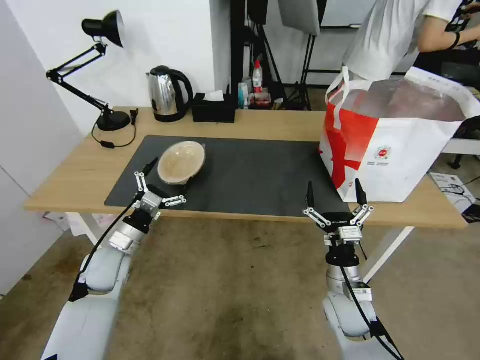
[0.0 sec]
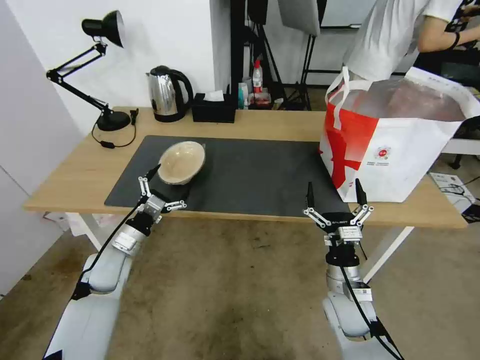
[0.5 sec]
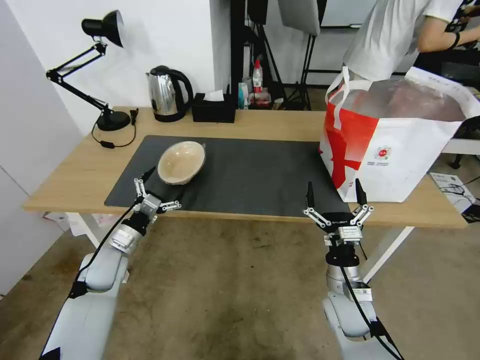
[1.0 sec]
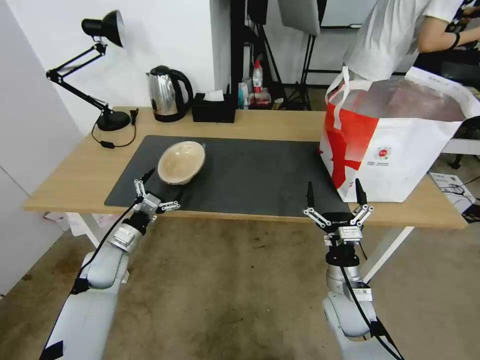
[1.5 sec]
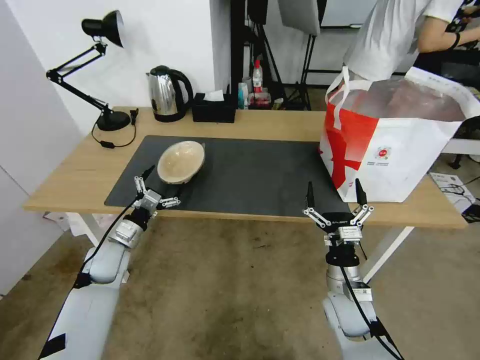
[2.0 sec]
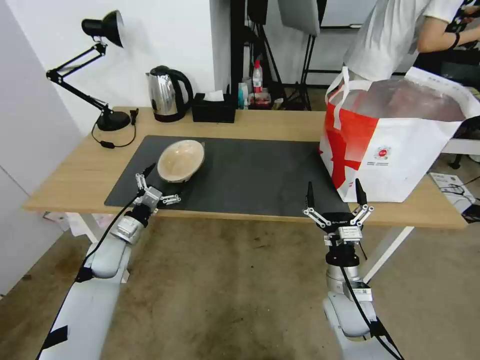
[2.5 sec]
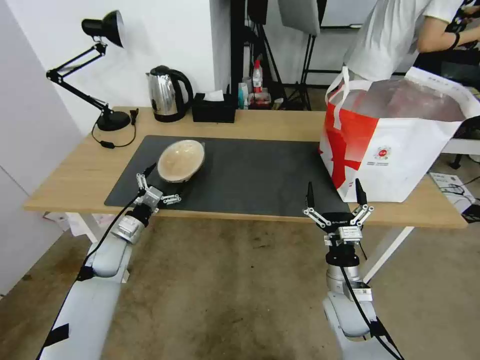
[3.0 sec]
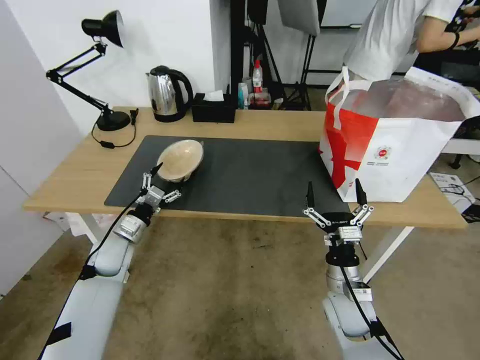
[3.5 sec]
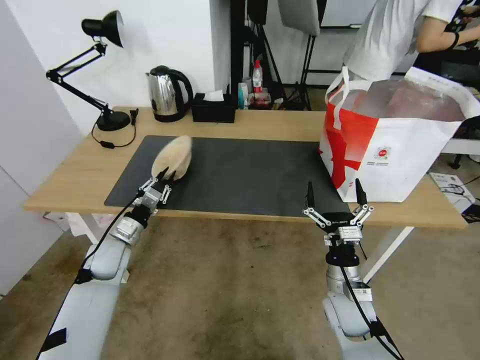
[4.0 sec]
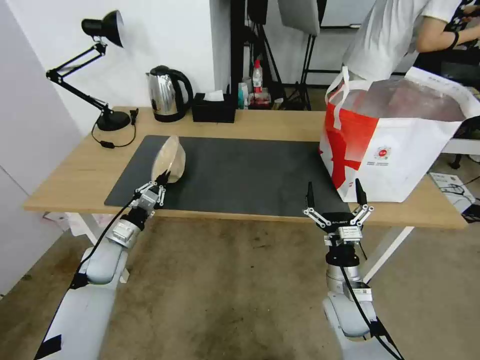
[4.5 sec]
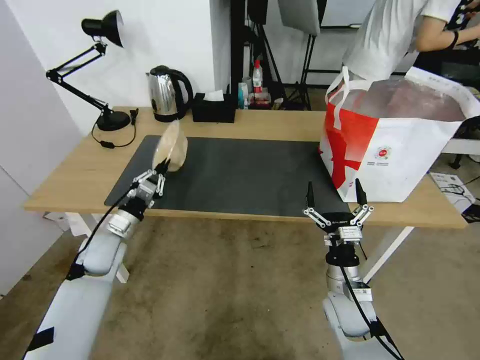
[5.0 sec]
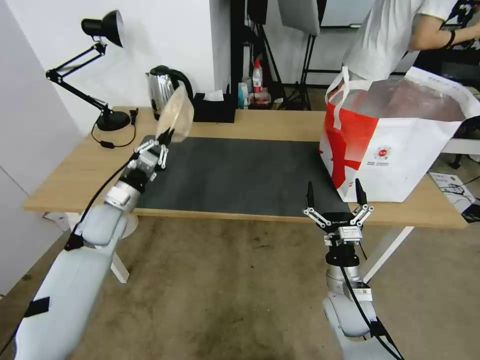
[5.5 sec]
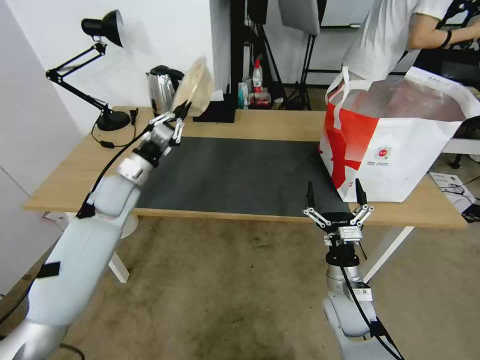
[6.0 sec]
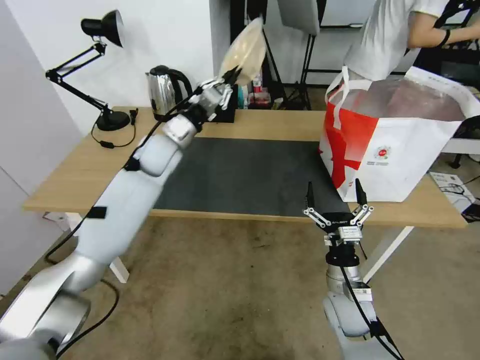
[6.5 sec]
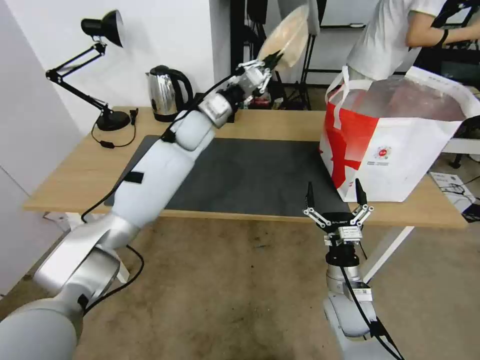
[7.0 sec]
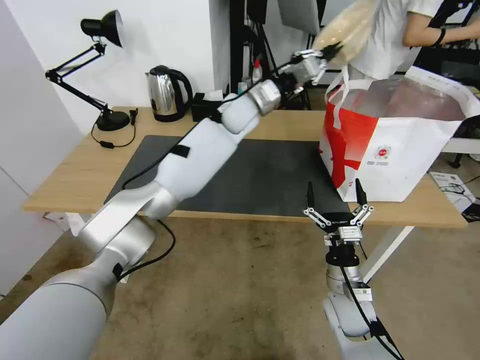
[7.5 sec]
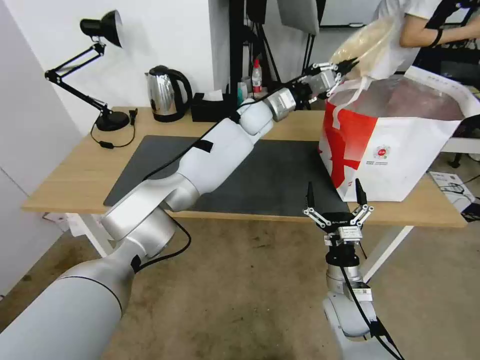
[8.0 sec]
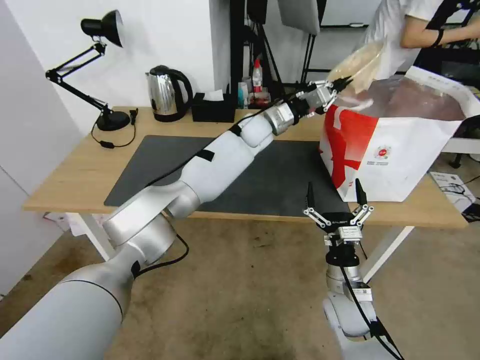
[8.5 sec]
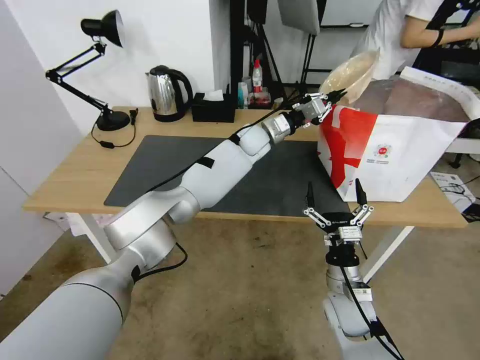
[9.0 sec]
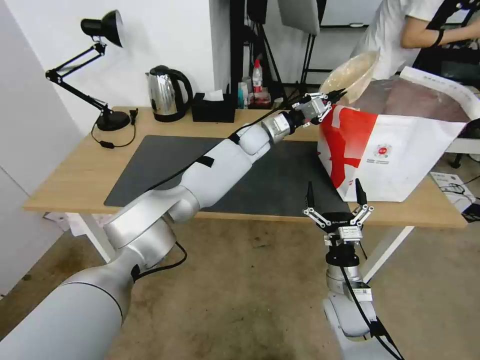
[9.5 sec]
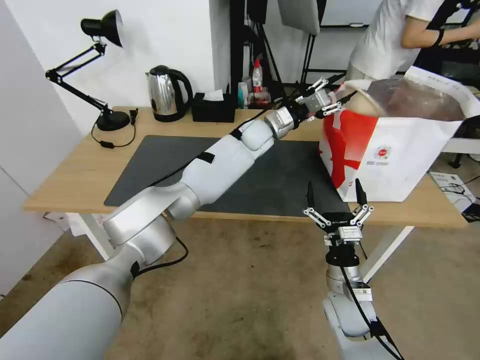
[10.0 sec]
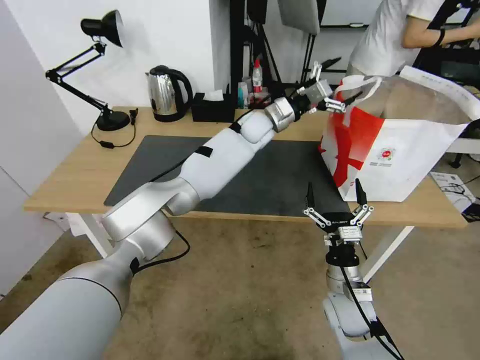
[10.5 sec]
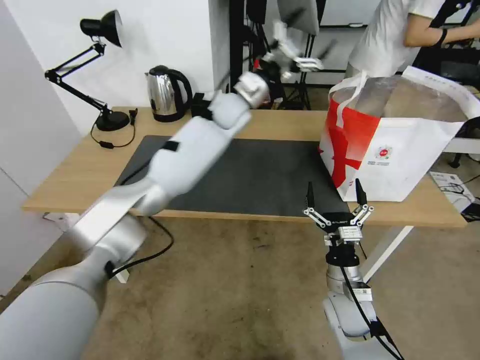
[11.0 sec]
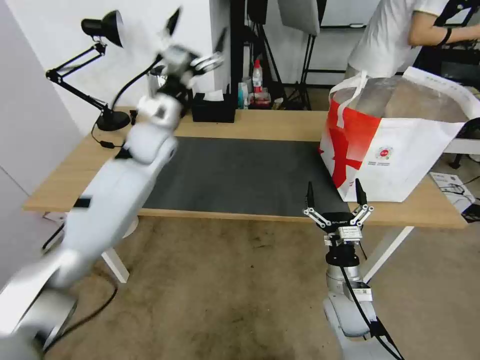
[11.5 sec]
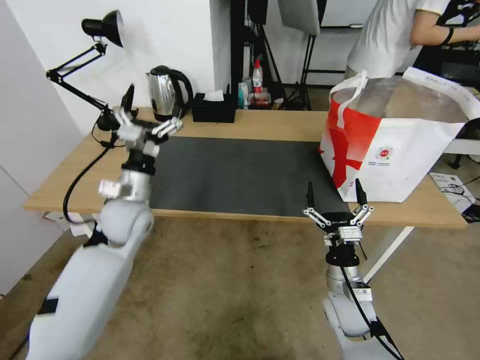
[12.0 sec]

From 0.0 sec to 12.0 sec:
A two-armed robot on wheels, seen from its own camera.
Task of the whole recording: Pick up the trash from the table and place it into the takeout bag.
From 0.0 sec to 2.0 sec: The grippers move only a little.
From 2.0 sec to 4.0 sec: The left gripper closes its fingers.
From 4.0 sec to 6.0 sec: The left gripper goes some 15 cm upward and forward.
From 6.0 sec to 8.0 sec: The left gripper moves to the right and forward, roughly 40 cm.
From 8.0 sec to 10.0 sec: The left gripper goes some 5 cm downward, and opens.
From 10.0 sec to 12.0 sec: The left gripper travels to the left and backward by some 35 cm, and opens up.

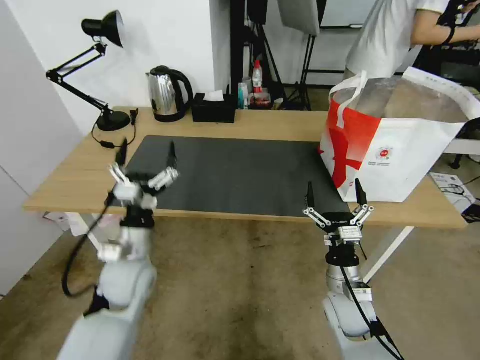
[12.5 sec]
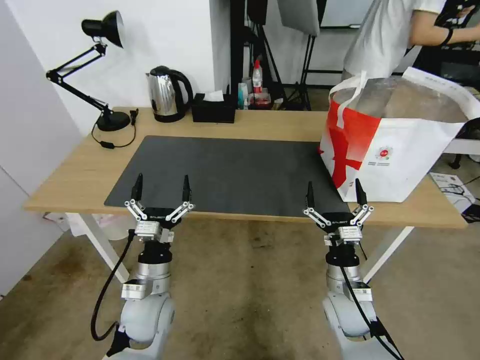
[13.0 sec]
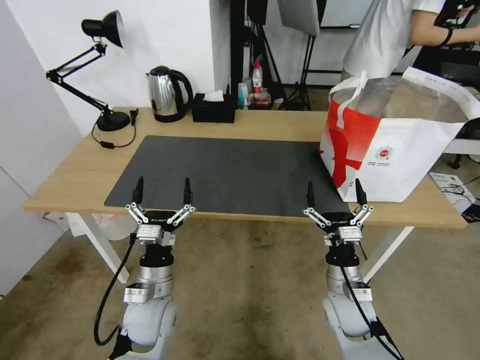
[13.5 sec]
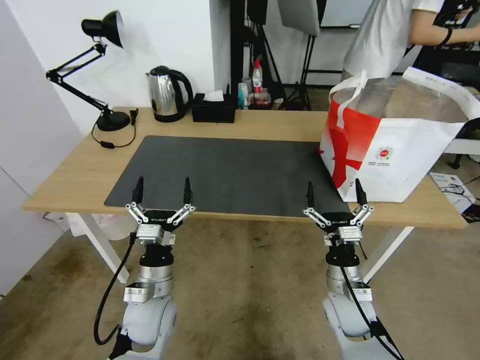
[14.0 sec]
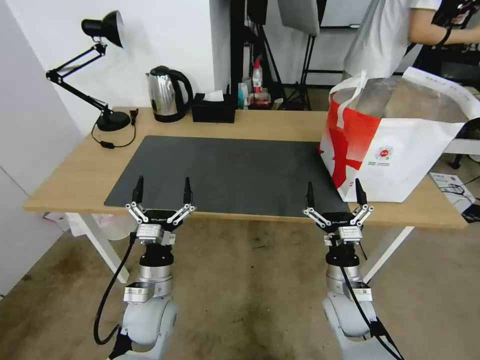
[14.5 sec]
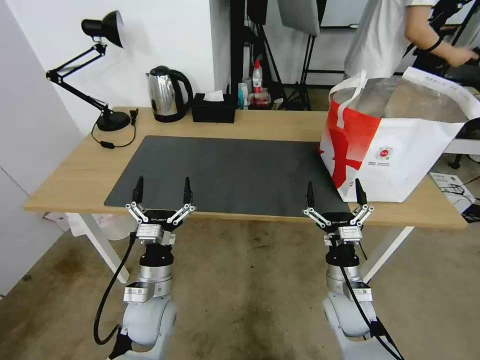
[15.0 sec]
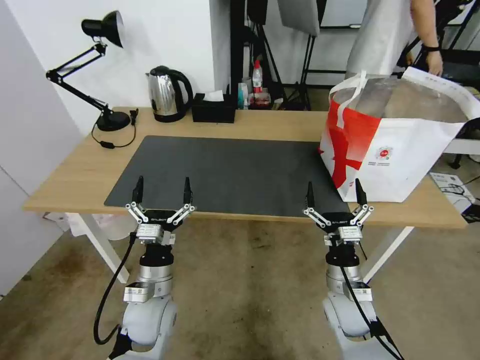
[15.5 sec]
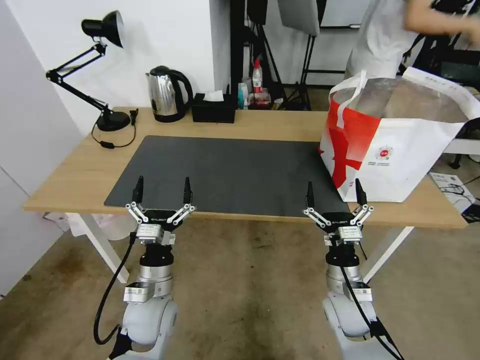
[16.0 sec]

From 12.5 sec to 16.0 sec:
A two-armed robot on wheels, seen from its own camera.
Task of the whole recording: Pick up the trash from the table and place it into the takeout bag.
From 12.5 sec to 14.5 sec: The left gripper is displaced downward by roughly 5 cm.
From 14.5 sec to 16.0 sec: Both grippers stay about where they are.
